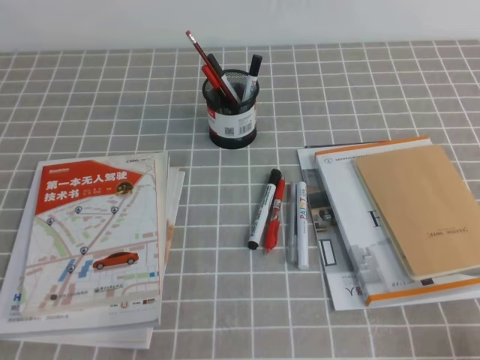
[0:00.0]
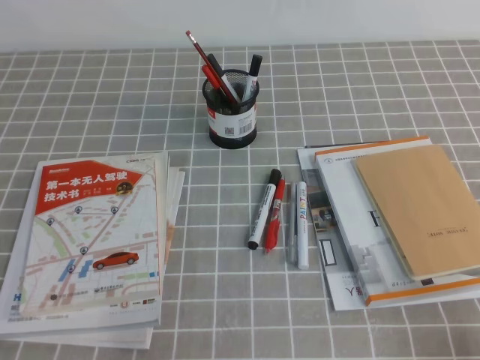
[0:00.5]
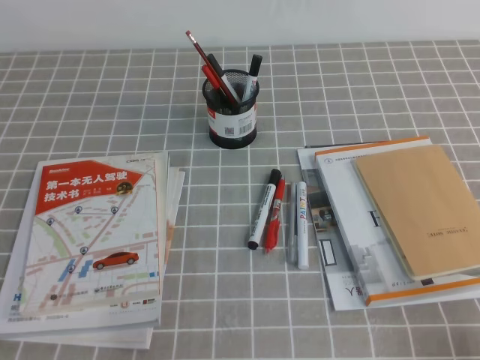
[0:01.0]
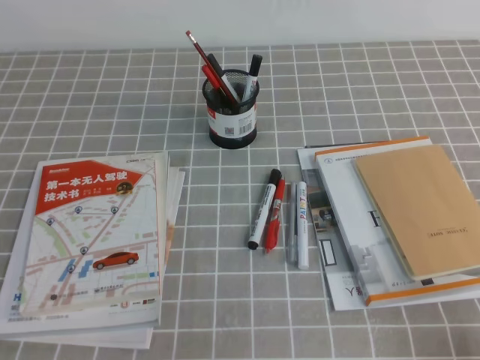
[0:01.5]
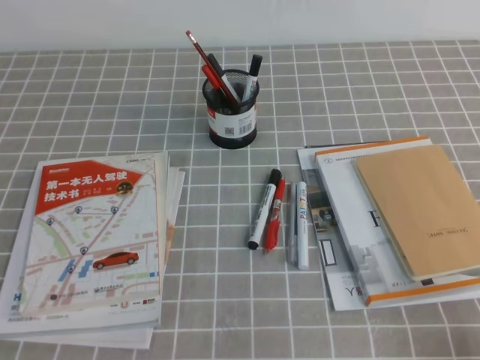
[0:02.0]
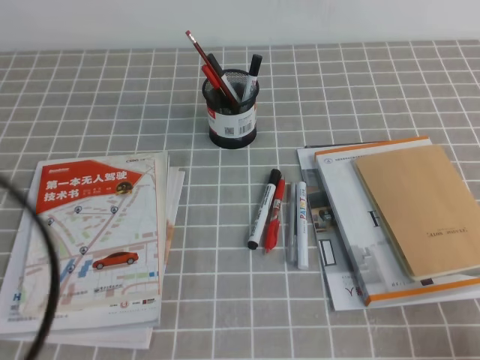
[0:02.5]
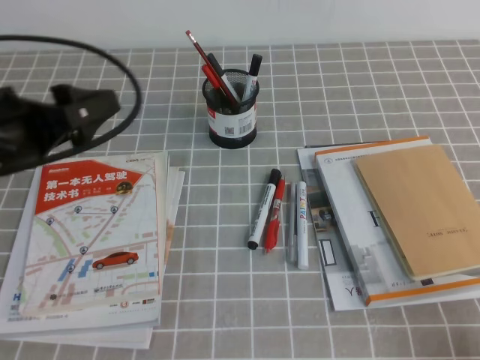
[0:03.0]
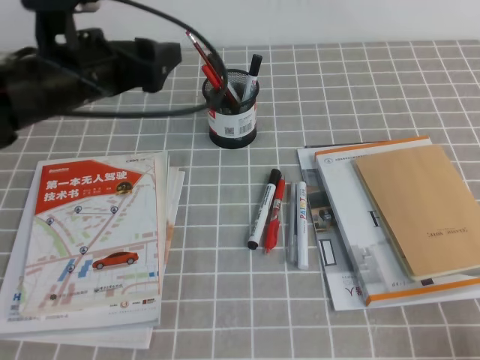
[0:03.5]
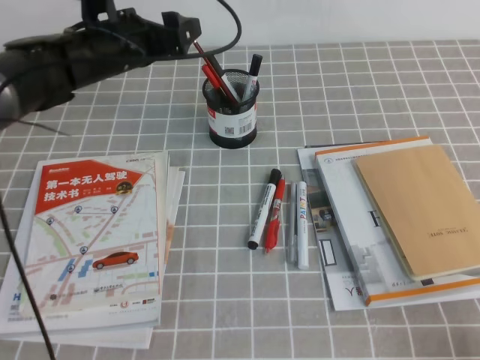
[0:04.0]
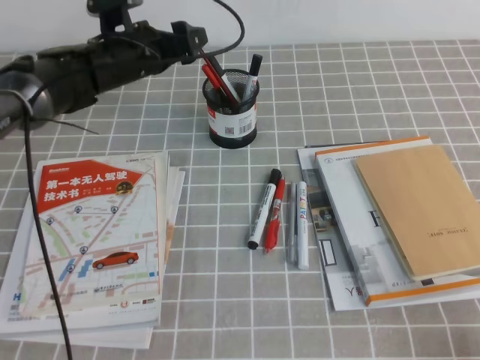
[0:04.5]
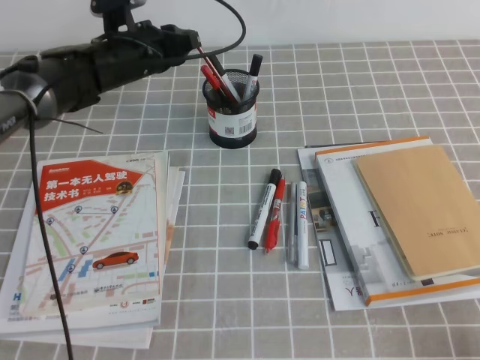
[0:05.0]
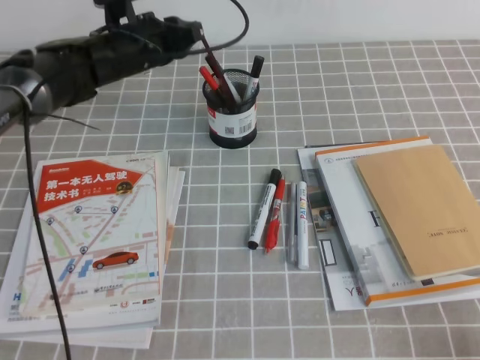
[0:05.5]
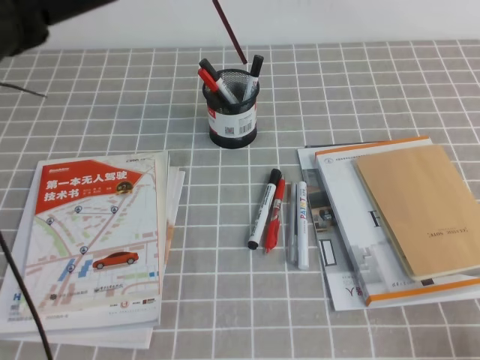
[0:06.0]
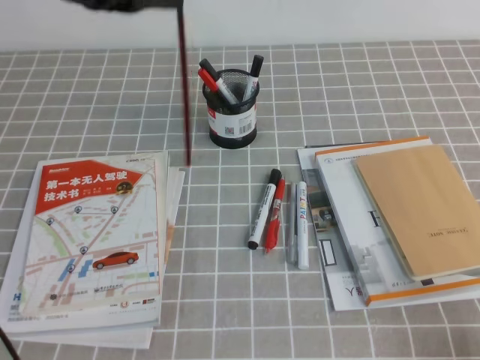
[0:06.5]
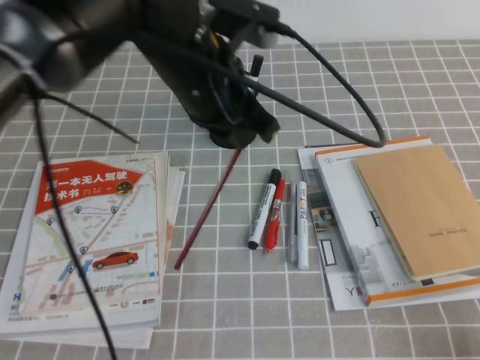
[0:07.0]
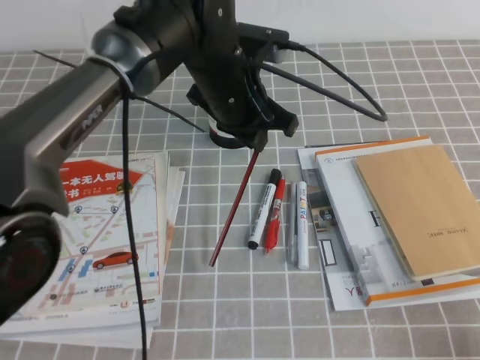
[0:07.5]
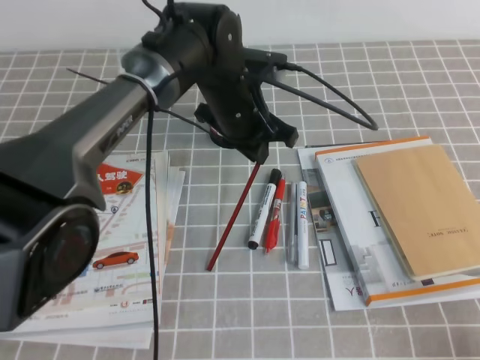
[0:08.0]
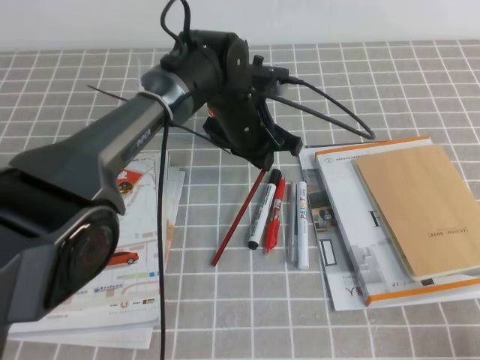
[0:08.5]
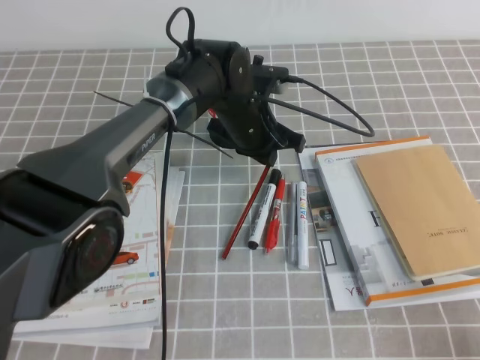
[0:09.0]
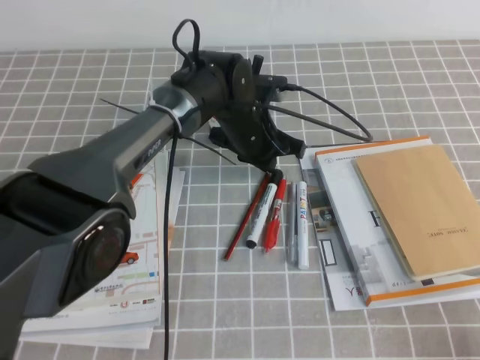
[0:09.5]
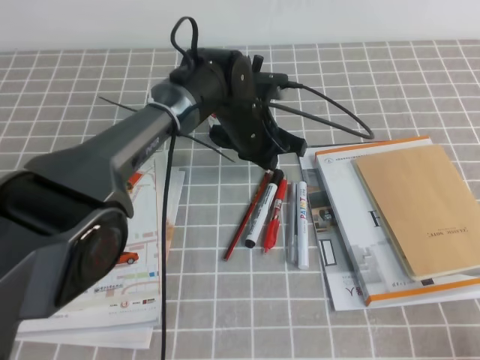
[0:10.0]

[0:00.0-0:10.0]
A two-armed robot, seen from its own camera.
0:02.0 to 0:04.0: The left gripper shifts some 35 cm forward, and opens its fingers.
0:04.0 to 0:06.0: The left gripper shifts about 5 cm upward, and closes up.
0:06.0 to 0:08.0: The left gripper is displaced to the right, downward and backward by some 15 cm.
0:08.0 to 0:10.0: The left gripper goes roughly 5 cm downward.

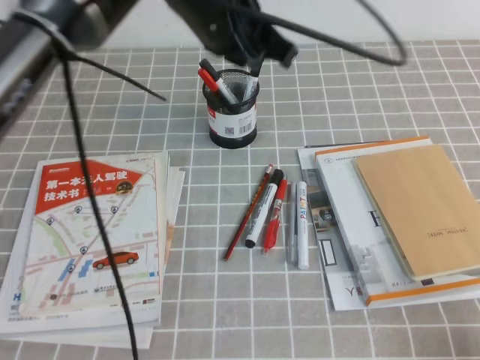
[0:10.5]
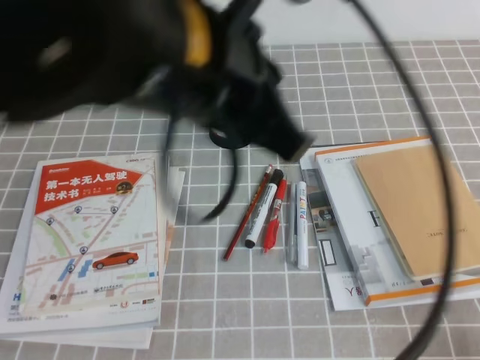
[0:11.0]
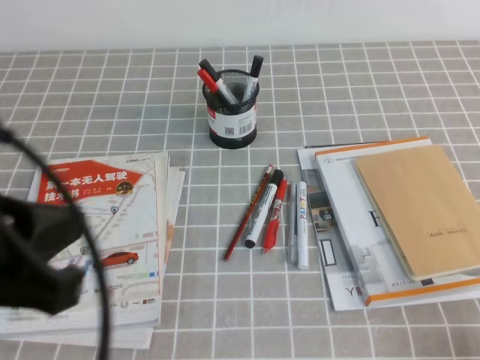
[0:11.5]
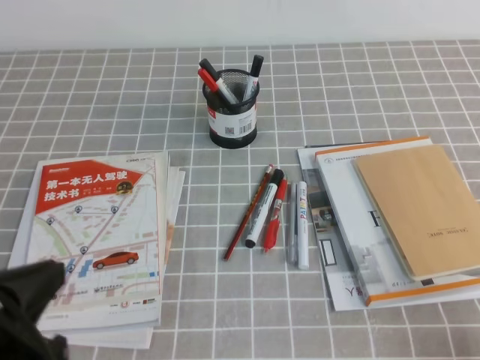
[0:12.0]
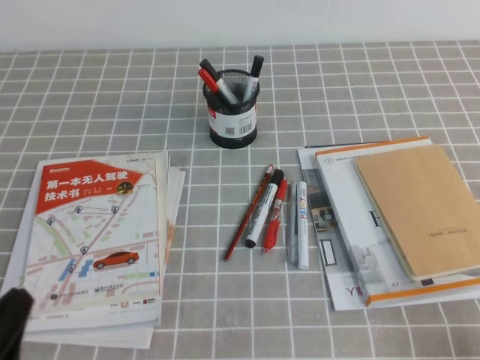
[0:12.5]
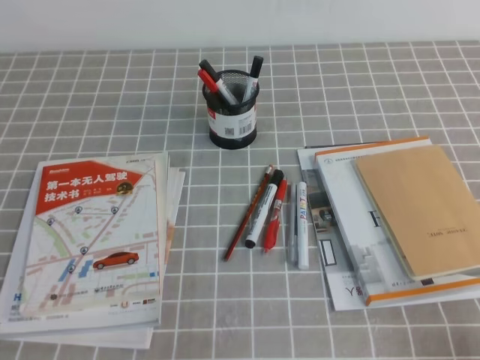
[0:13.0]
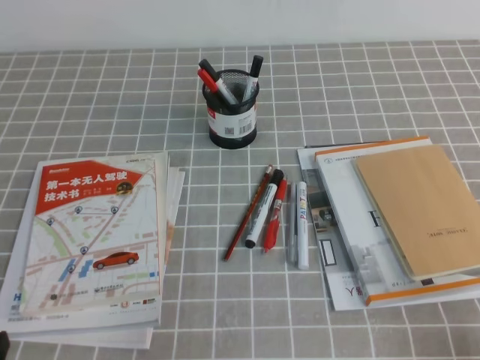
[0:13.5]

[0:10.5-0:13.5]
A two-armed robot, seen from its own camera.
Step, 0:10.5 to 0:13.5: Pick up the pen from the pen holder.
0:10.5 to 0:12.0: The left gripper moves backward and to the left, about 35 cm.
0:12.0 to 0:13.5: The left gripper goes roughly 15 cm downward.
